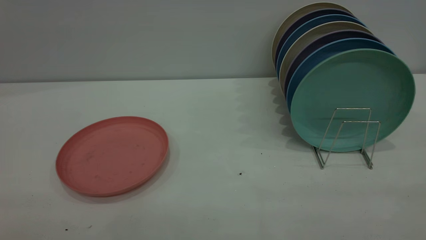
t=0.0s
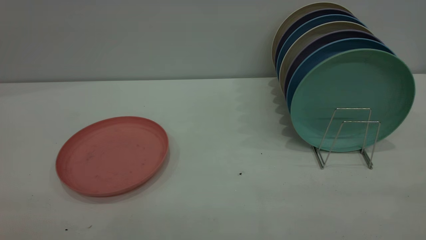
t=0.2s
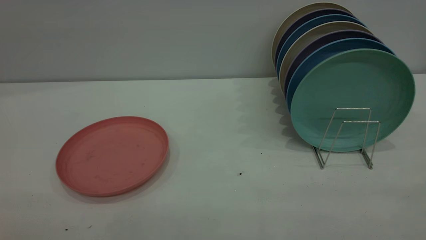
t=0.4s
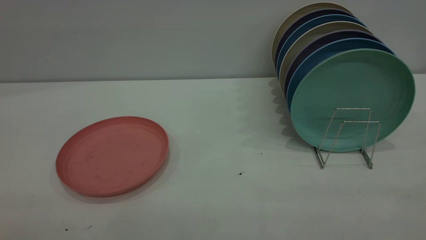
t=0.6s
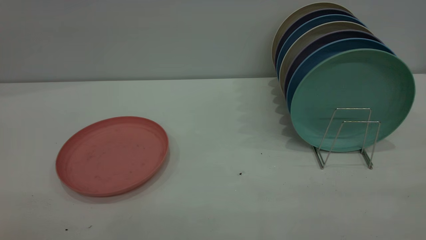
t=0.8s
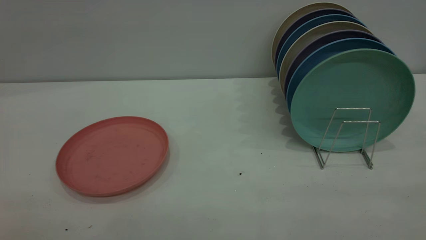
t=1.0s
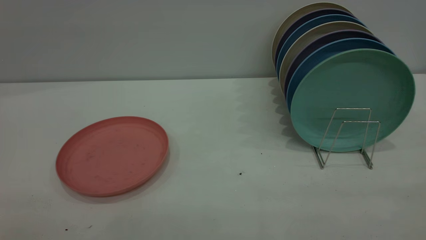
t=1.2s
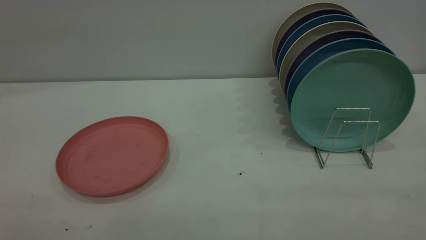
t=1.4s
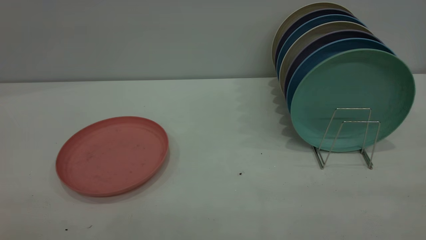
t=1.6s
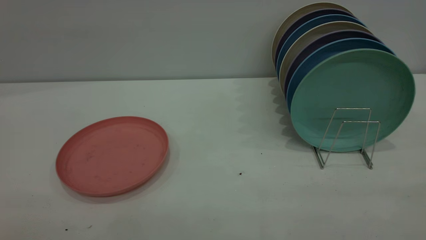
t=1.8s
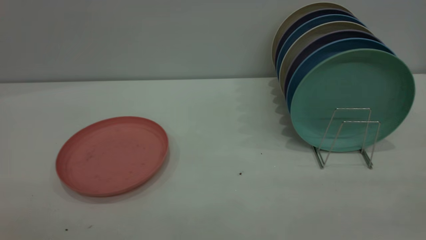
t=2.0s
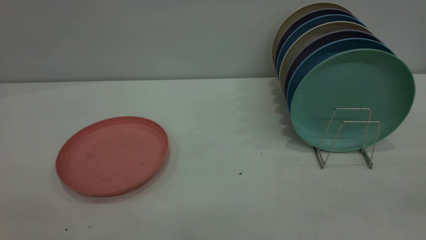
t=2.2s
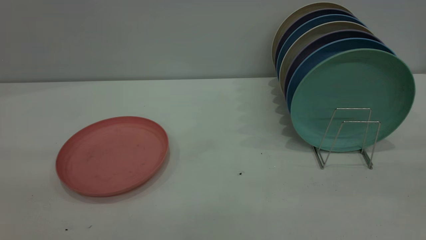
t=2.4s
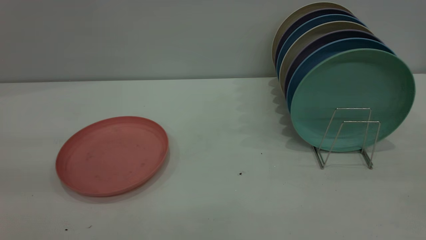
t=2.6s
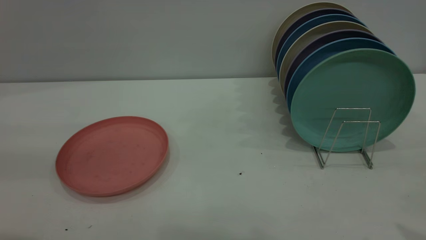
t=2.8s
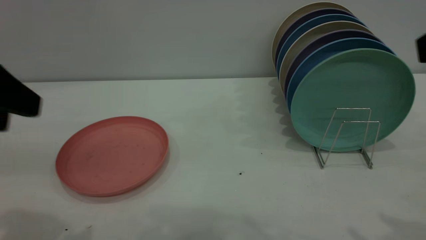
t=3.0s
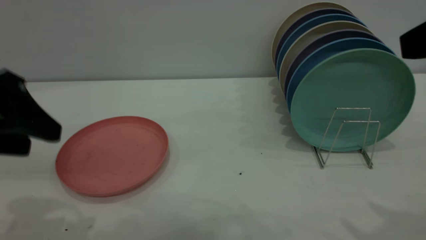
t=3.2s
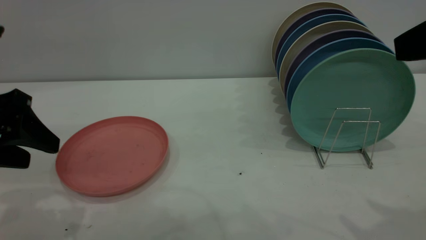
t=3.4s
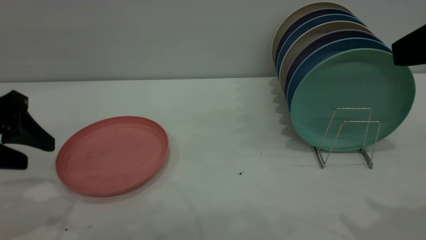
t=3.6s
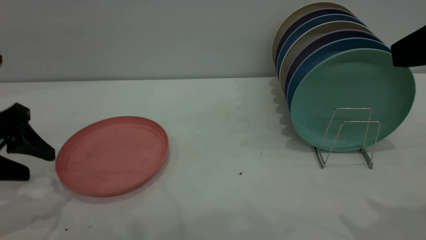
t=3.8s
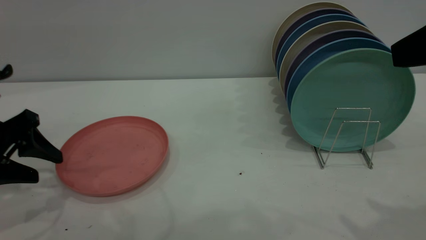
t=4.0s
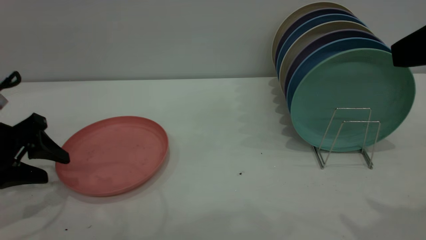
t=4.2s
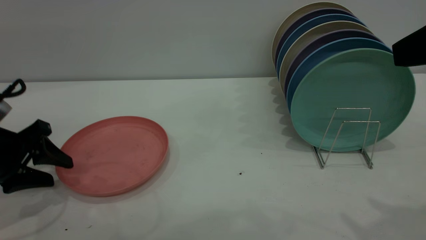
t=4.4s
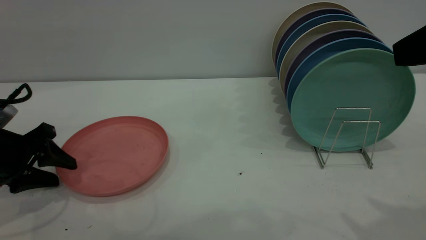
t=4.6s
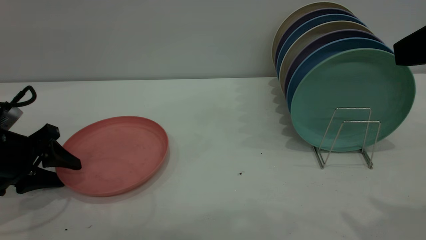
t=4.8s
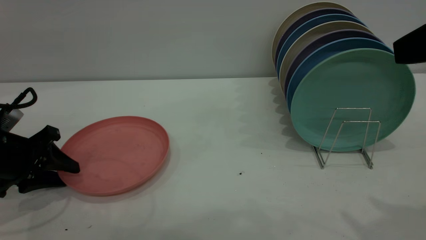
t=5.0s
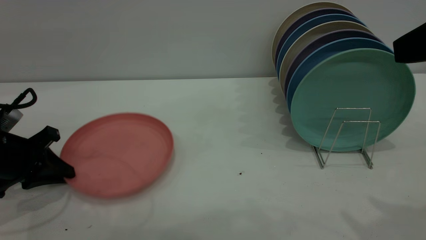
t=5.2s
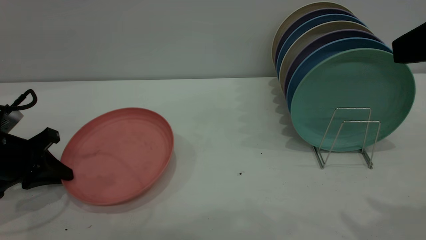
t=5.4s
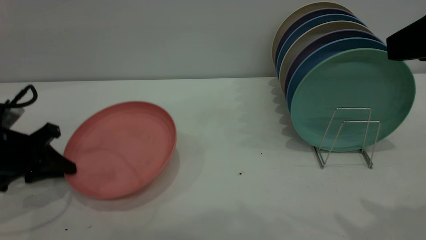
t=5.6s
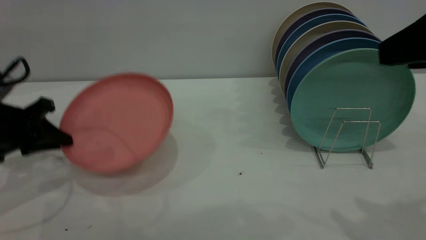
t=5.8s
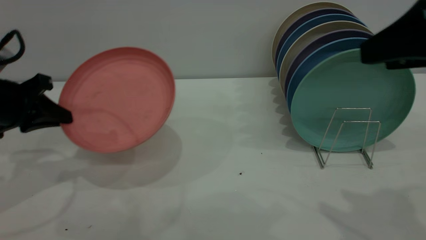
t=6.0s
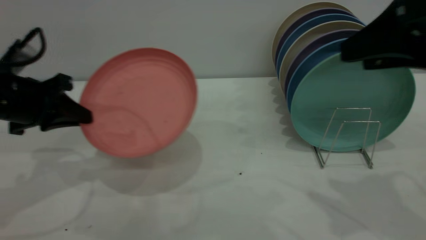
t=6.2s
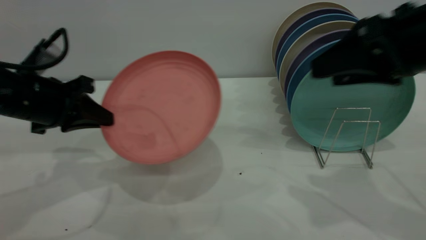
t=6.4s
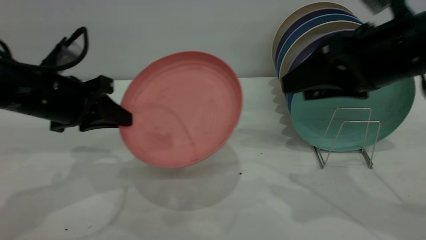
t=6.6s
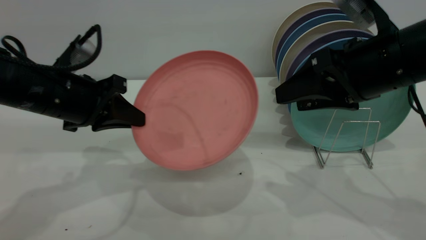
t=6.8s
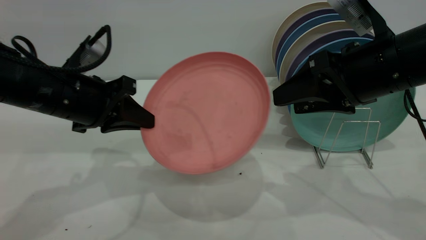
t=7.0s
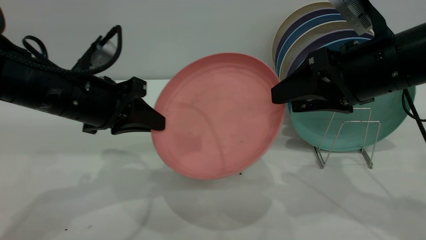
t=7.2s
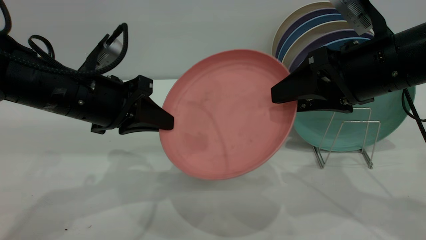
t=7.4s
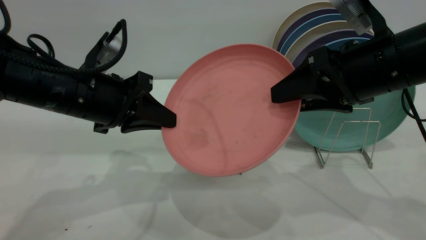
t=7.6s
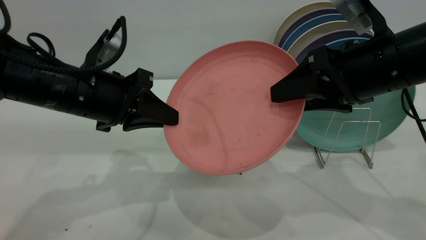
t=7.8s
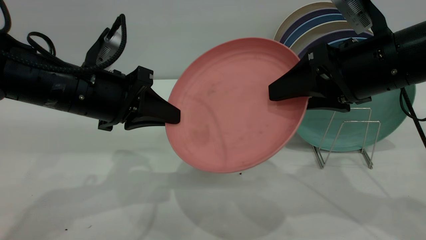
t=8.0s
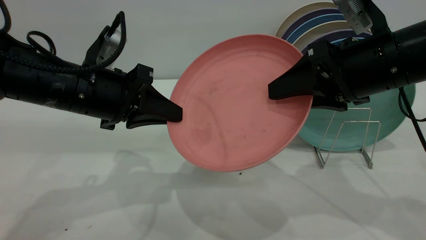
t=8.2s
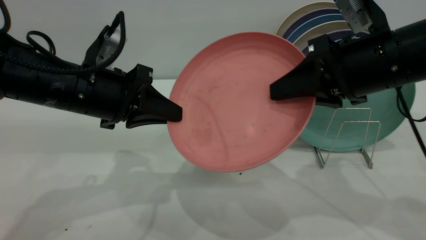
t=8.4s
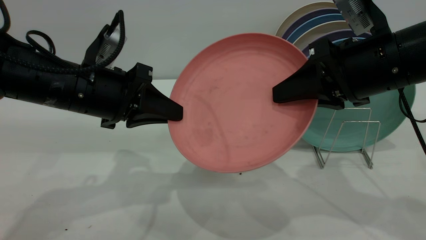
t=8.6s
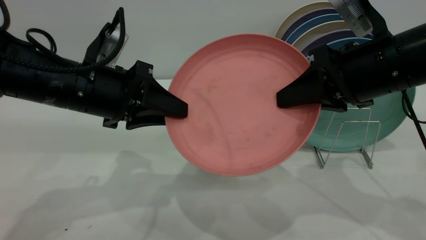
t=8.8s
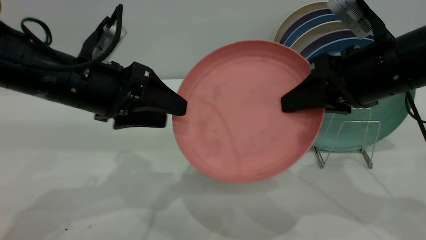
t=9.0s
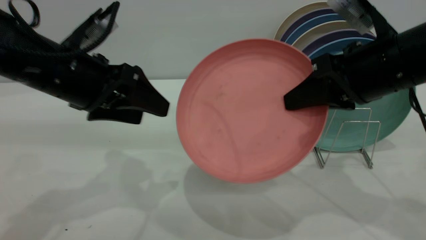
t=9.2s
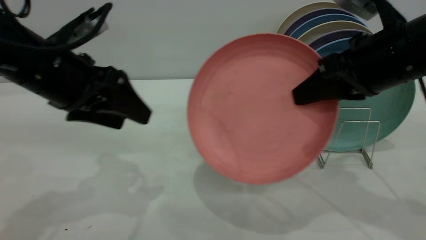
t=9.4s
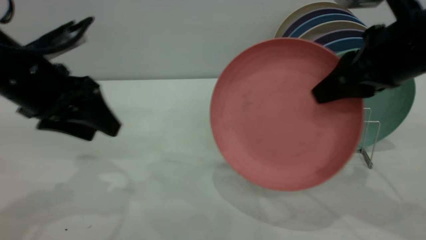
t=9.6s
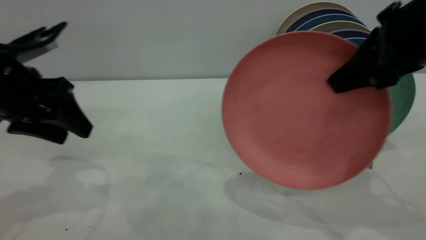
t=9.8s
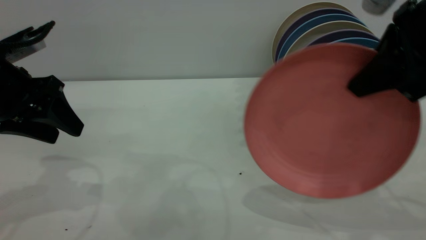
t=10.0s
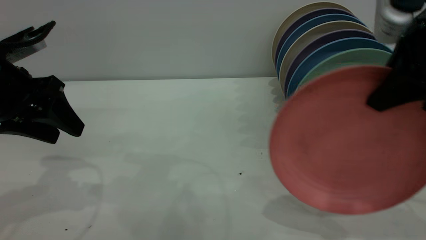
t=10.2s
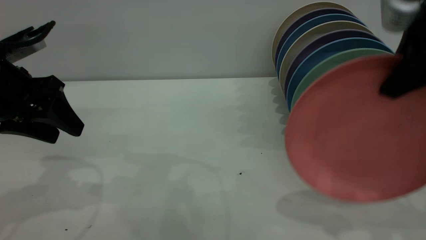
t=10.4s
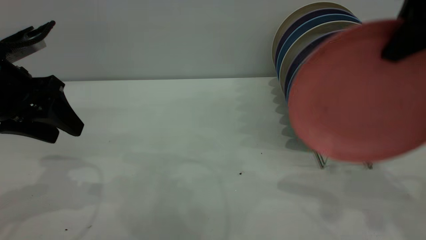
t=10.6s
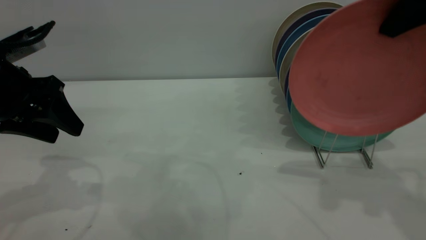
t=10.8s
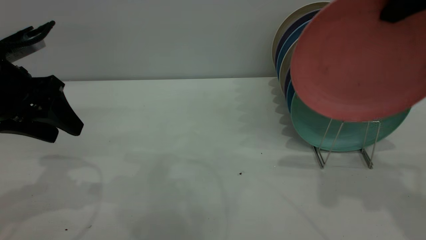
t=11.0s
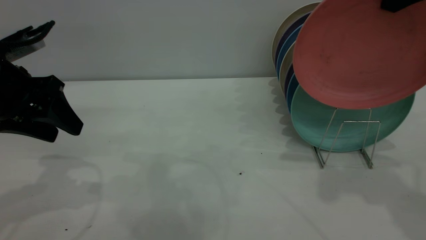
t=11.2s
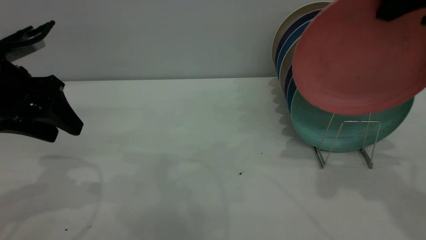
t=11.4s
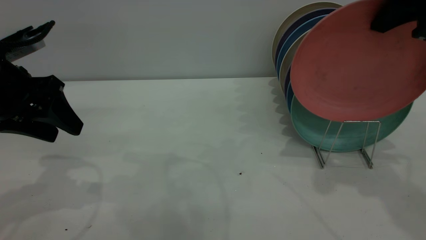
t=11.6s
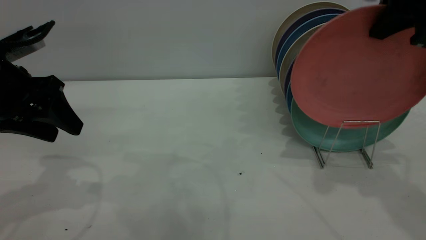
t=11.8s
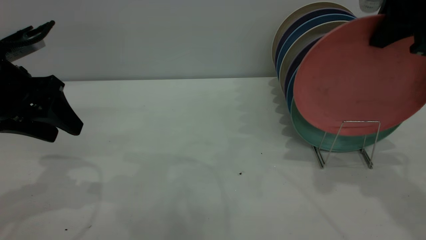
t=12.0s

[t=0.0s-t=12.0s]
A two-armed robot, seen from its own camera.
Task of the whole recording: the left gripper grasp the pink plate, the left gripper pass the pink plate to the right gripper, and the right gripper place the pink plate on the plate rack.
Step, t=0.0s to t=5.6s: Pick up the plate with the left gripper.
Step, t=5.8s to t=9.0s: Pass the plate from the left gripper to the right gripper.
t=0.0s to t=1.6s: Neither gripper changes place.
t=1.6s to t=3.0s: The left gripper moves forward, some 20 cm.
t=3.0s to t=4.4s: The left gripper goes roughly 20 cm downward and forward.
t=4.4s to t=6.0s: The left gripper goes some 5 cm upward, and closes up.
t=6.0s to t=7.6s: The left gripper is displaced to the right by some 15 cm; the right gripper shifts approximately 10 cm downward, forward and to the left.
t=7.6s to t=9.0s: The left gripper opens up. The right gripper closes its fingers.
t=9.0s to t=10.4s: The right gripper travels upward by some 10 cm, while the left gripper heads to the left, covering approximately 10 cm.
t=10.4s to t=12.0s: The right gripper shifts approximately 5 cm forward.

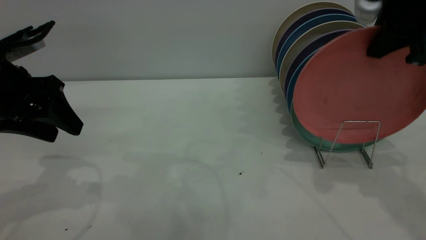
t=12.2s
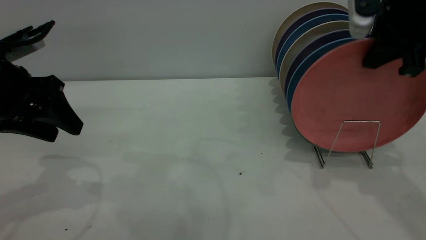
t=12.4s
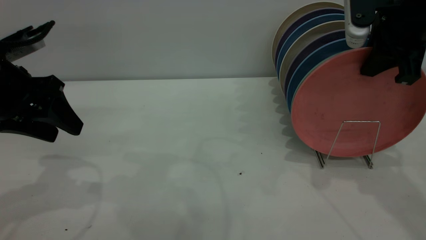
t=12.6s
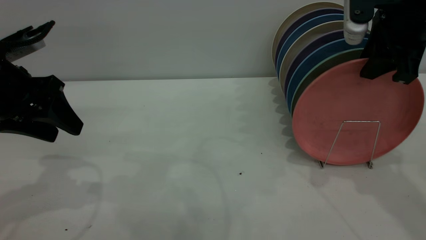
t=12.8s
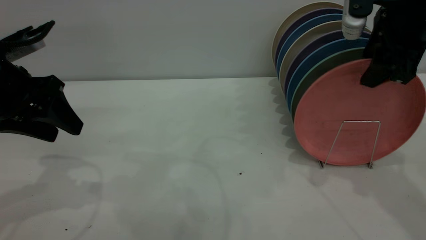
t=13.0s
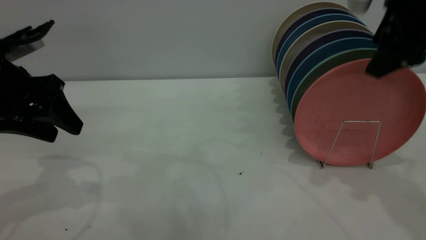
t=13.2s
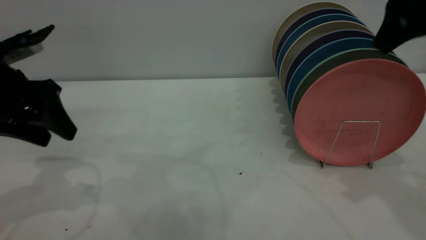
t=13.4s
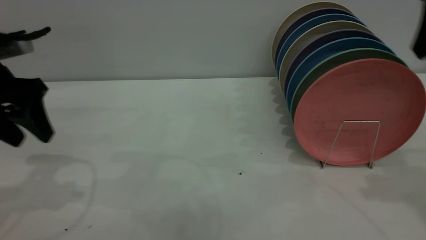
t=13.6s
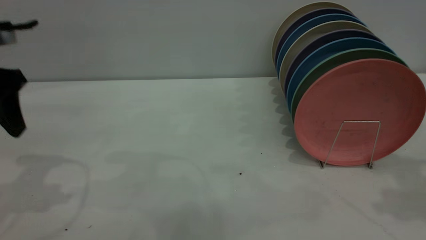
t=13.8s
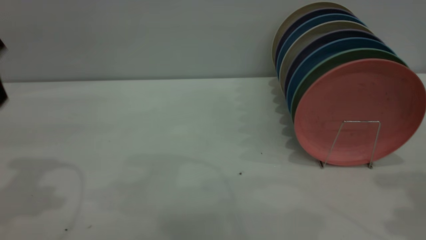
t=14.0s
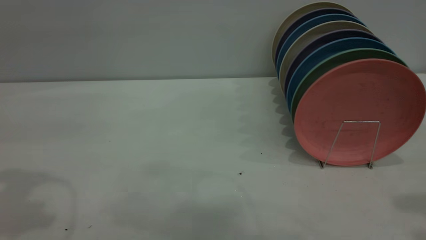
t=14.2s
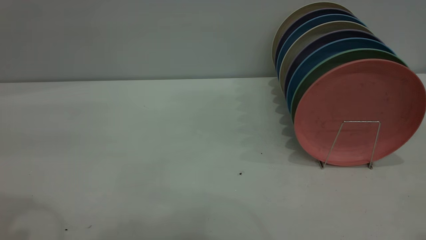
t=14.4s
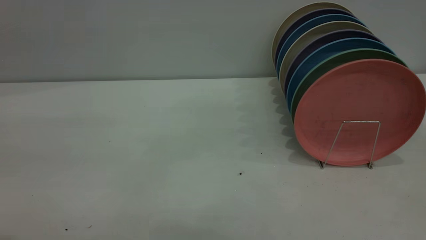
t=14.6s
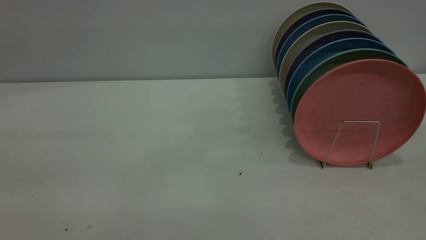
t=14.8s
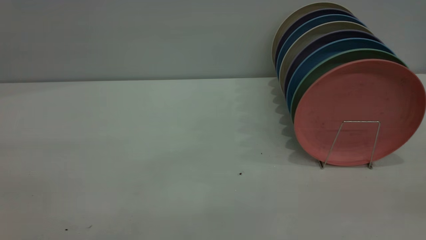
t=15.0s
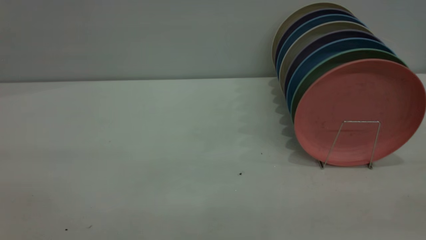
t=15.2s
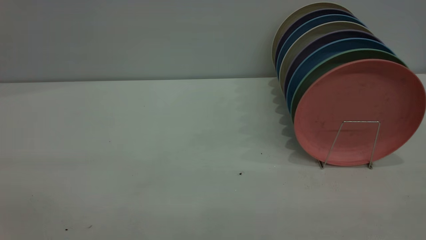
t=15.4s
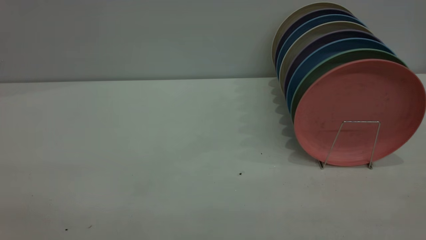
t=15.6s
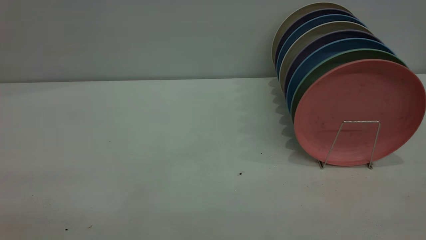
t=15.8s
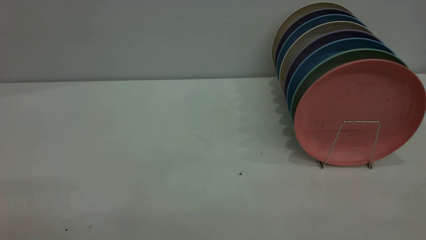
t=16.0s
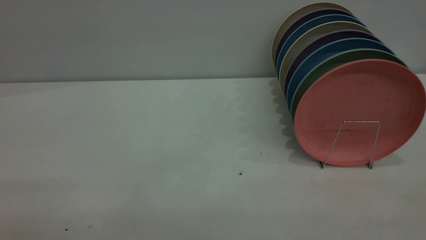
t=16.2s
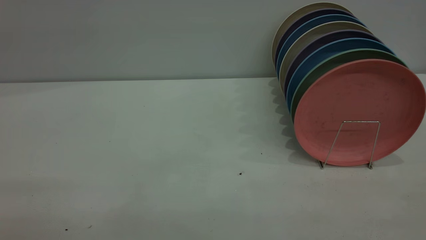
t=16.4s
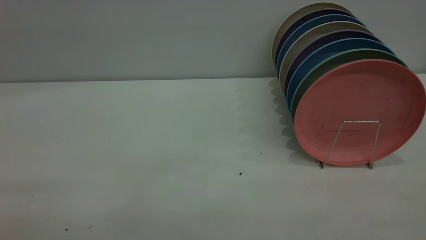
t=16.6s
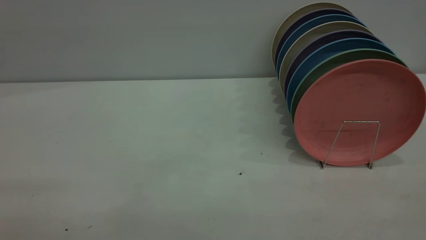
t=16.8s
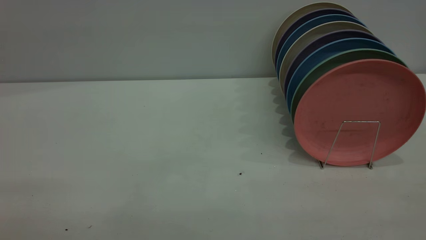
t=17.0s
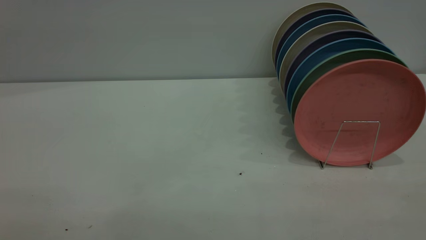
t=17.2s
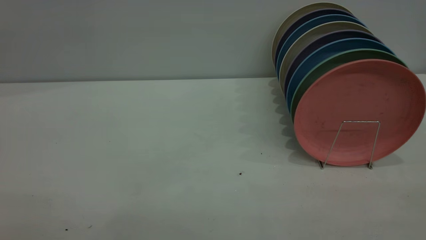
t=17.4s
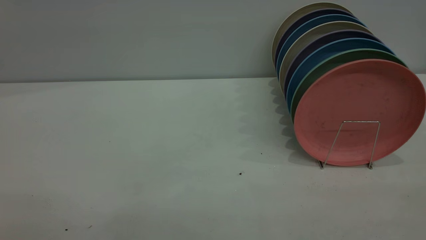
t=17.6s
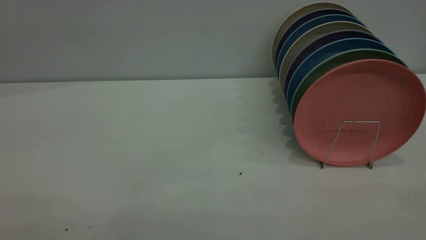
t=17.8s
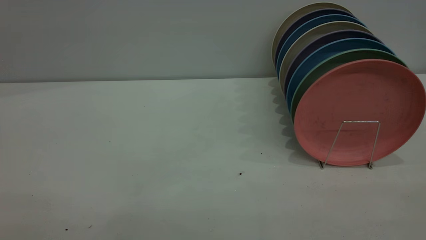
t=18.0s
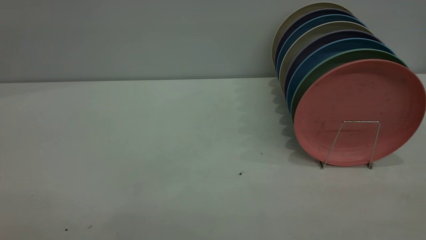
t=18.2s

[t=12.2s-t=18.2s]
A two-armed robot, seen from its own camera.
Task of the whole recording: the left gripper grasp the pink plate, the left gripper pass the pink plate to the right gripper, and the right gripper place the pink plate on the plate rack.
t=12.2s to t=13.8s: The right gripper moves backward, roughly 5 cm, and opens its fingers.
t=13.8s to t=15.2s: The left gripper shifts approximately 30 cm backward and upward.
